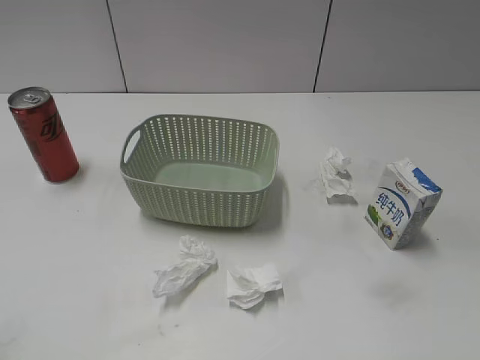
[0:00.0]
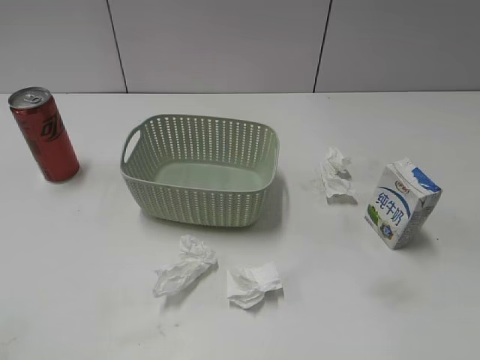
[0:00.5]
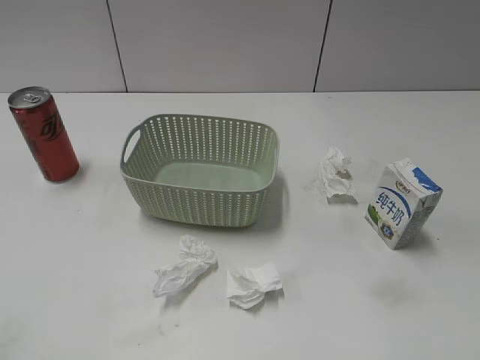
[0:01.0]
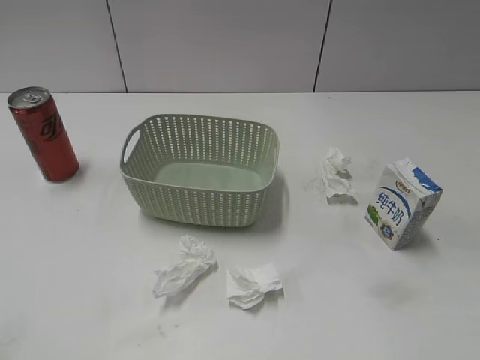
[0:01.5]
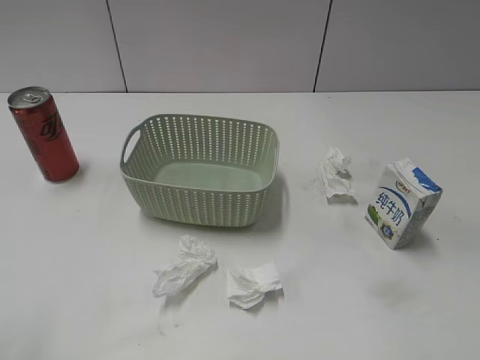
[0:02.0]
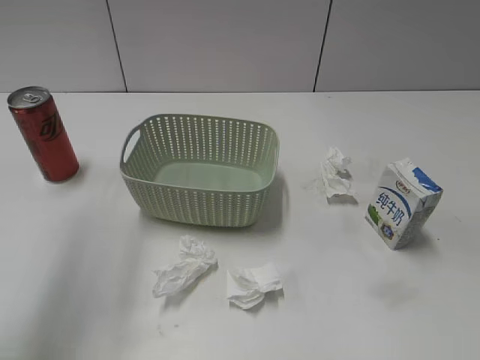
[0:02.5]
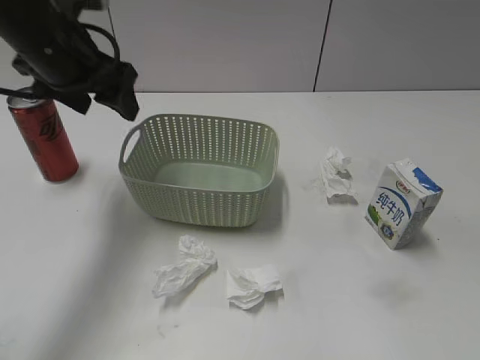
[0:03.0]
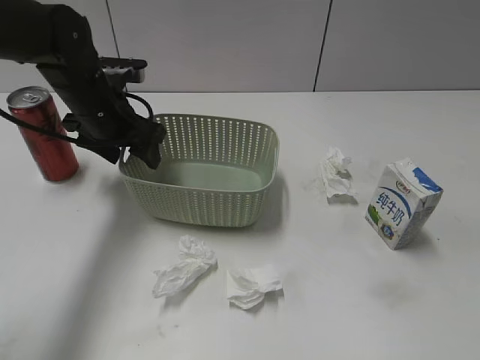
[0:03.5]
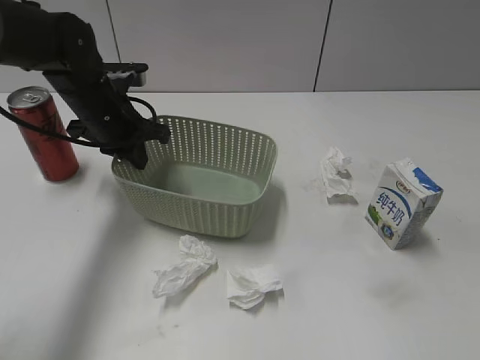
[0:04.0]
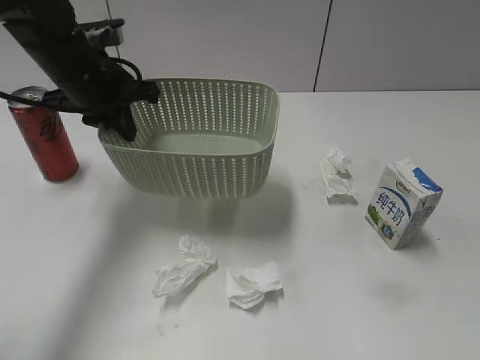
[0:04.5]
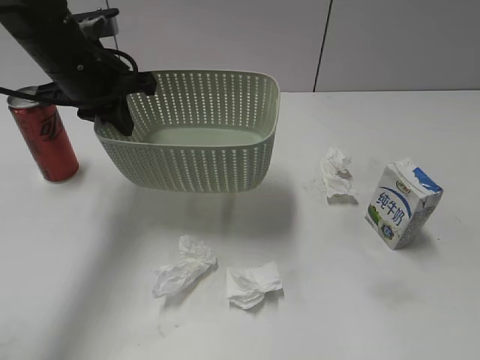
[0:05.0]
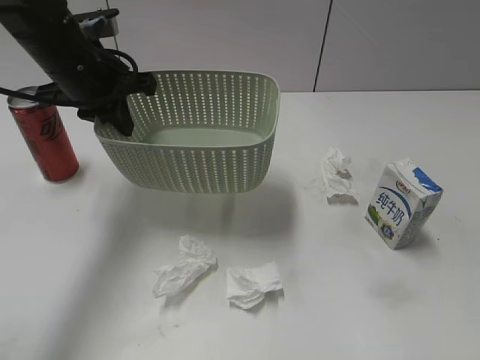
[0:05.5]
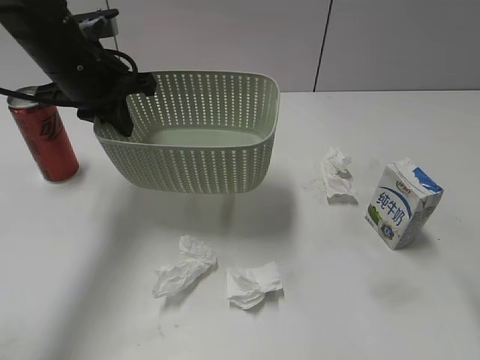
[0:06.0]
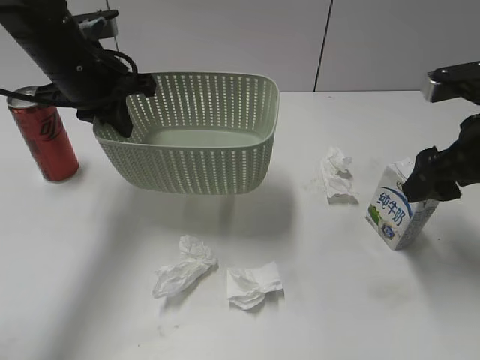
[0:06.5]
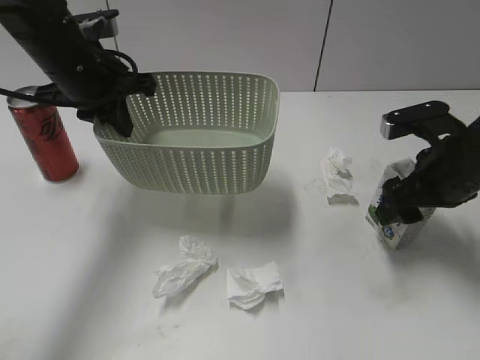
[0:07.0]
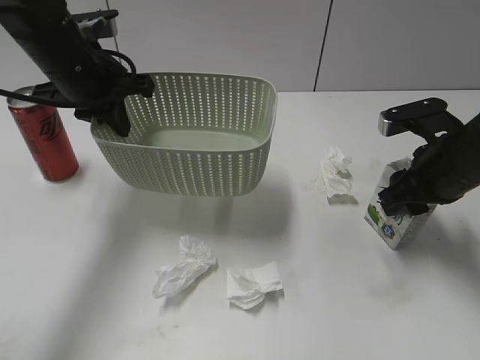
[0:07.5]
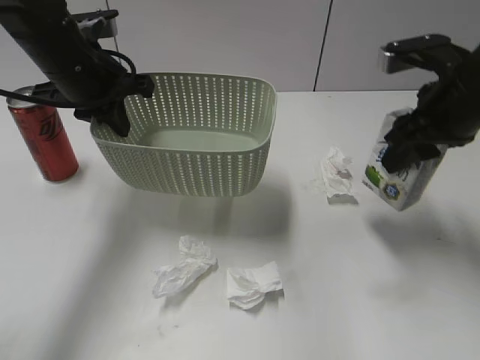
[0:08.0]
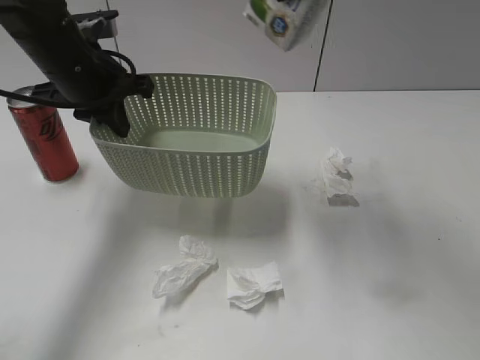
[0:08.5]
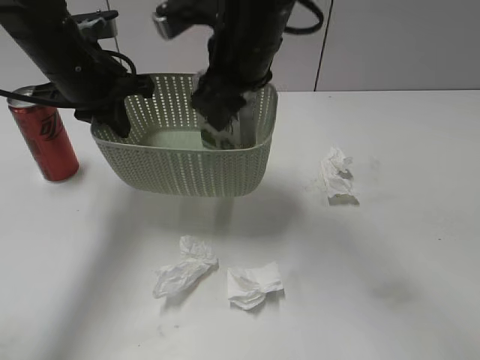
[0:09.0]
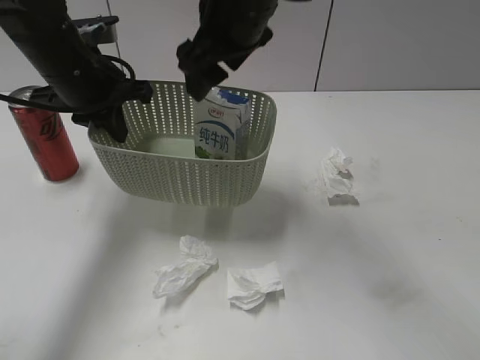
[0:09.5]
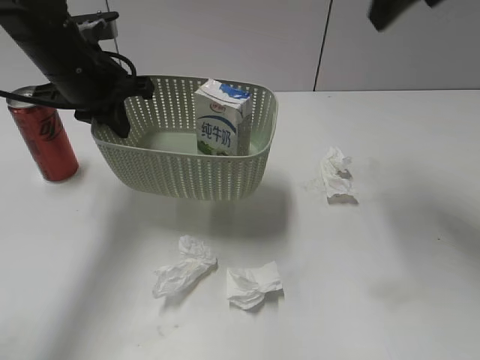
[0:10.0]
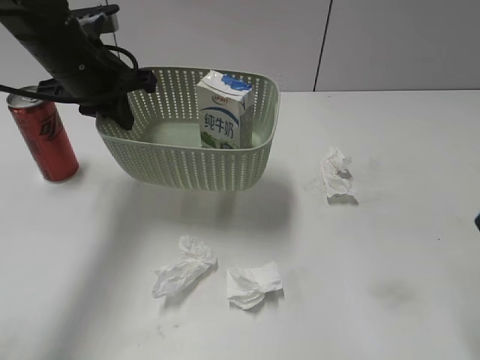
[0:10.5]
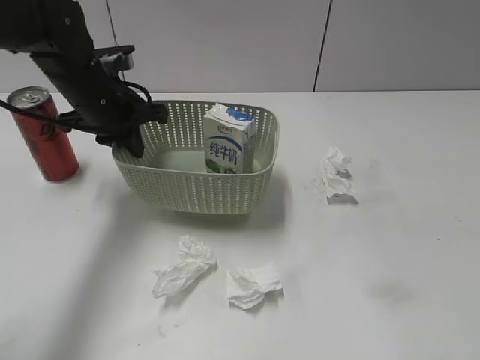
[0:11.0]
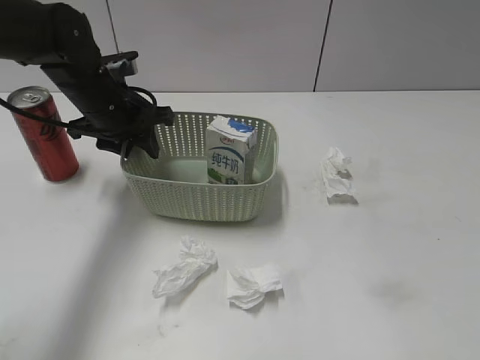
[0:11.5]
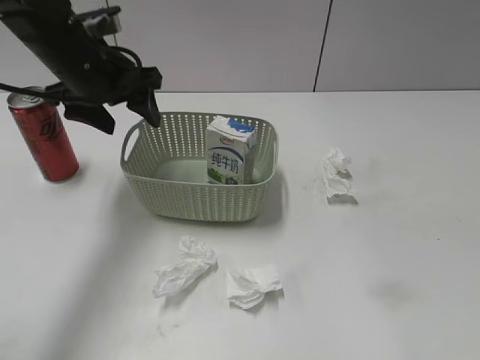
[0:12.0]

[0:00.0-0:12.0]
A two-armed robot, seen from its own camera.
Step, 0:03.0 to 0:04.0: Grasp the basket with left gripper.
Step, 0:05.0 to 0:07.5: Grasp the milk with right gripper.
Step, 0:08.0 to 0:09.5: Place the milk in the basket with right gripper.
0:02.0 to 0:04.0: The left gripper goes approximately 40 cm forward.
0:04.0 to 0:06.0: The right gripper moves forward and upward, about 10 cm. The left gripper goes roughly 5 cm upward, and closes.
0:06.0 to 0:08.0: The right gripper travels forward and downward by approximately 30 cm, and closes up.
0:08.0 to 0:10.0: The right gripper shifts some 30 cm to the left and upward, and opens up.
0:10.0 to 0:12.0: The left gripper shifts some 5 cm downward, and opens up; the right gripper shifts about 35 cm backward and to the right.

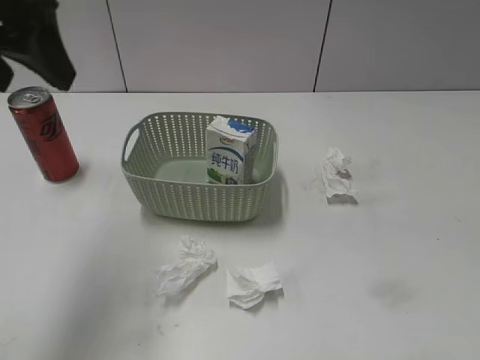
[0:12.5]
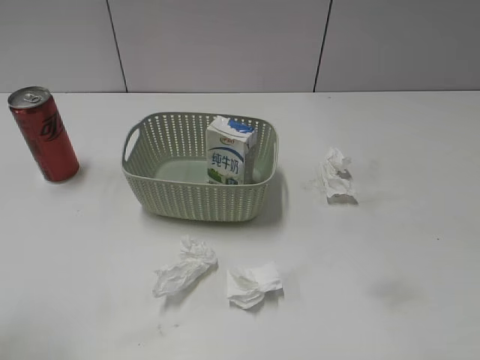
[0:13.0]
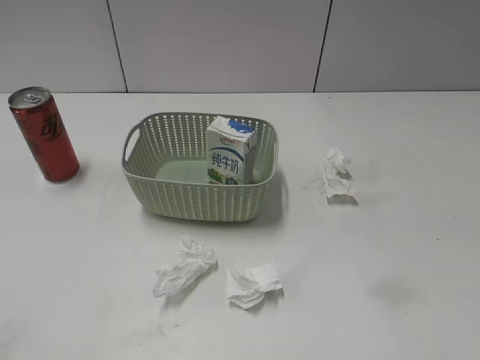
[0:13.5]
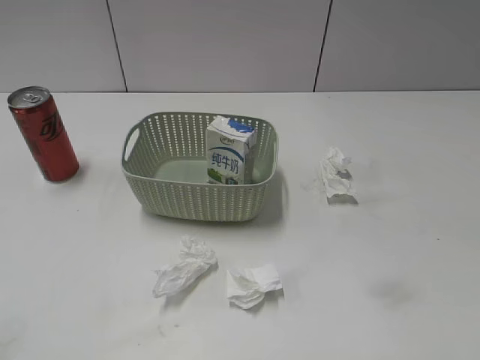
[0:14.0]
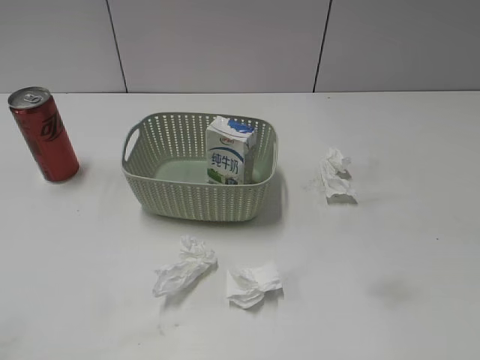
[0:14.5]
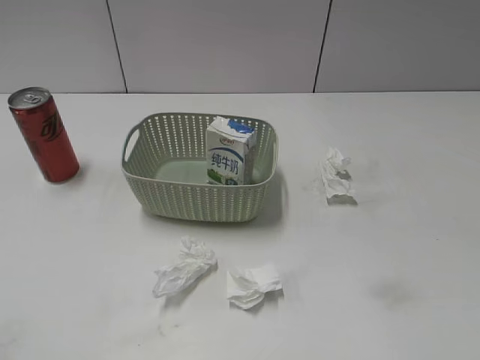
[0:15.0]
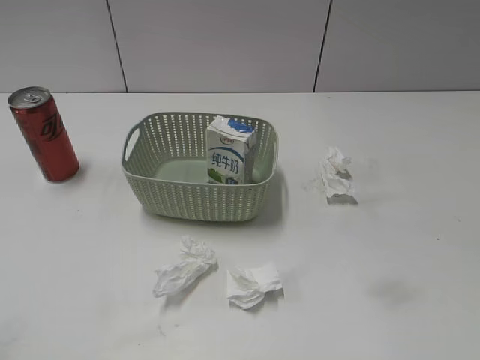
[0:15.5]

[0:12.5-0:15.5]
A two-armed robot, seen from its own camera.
0:12.5 to 0:14.0: The left gripper is displaced backward by about 30 cm.

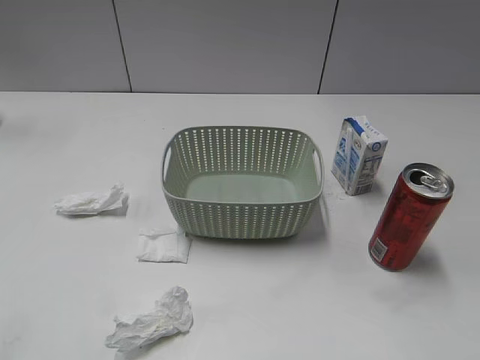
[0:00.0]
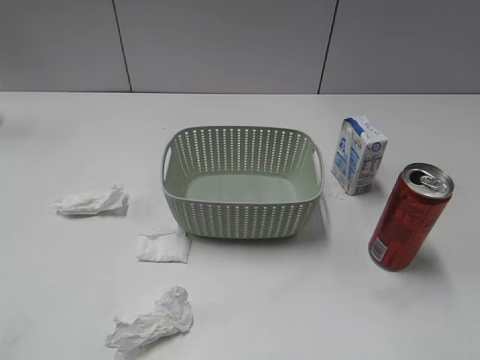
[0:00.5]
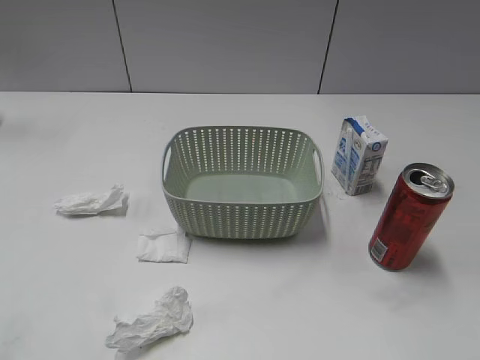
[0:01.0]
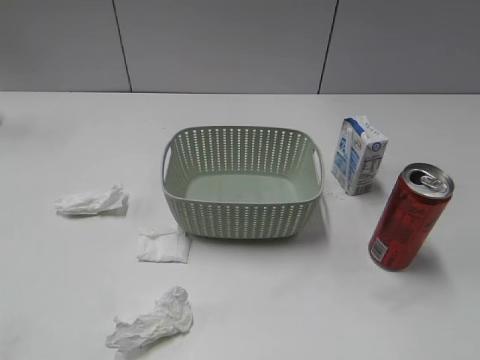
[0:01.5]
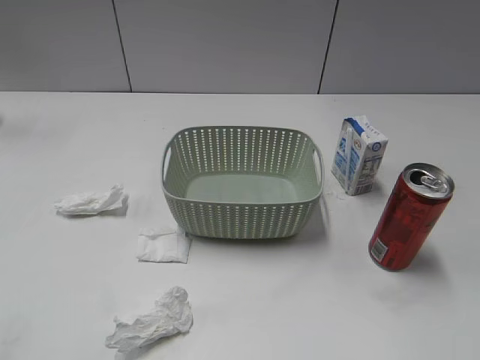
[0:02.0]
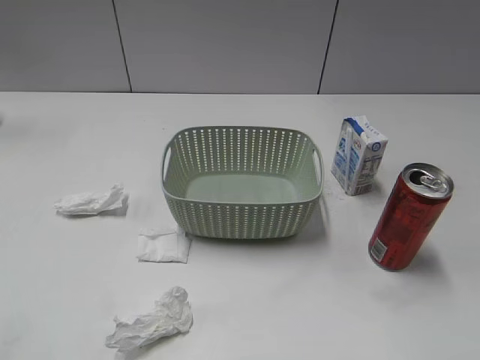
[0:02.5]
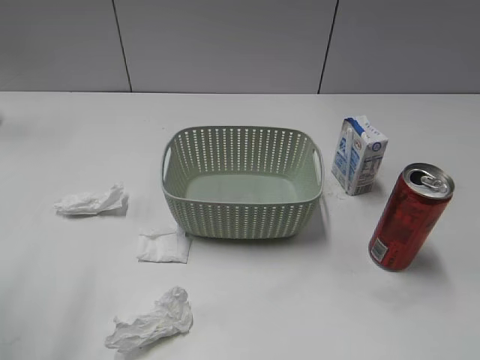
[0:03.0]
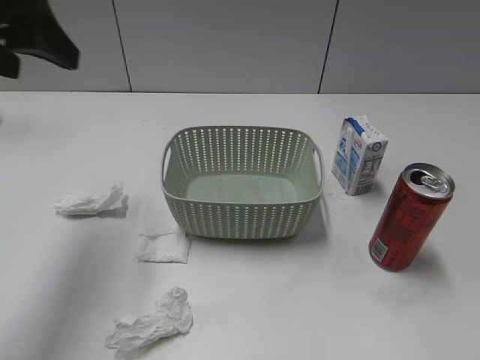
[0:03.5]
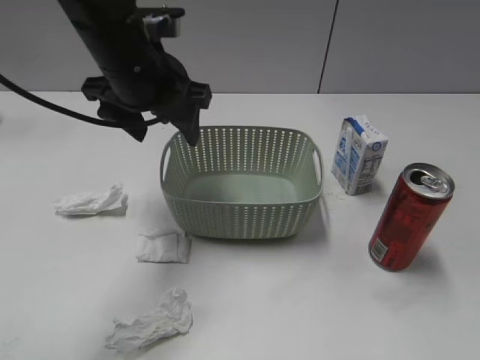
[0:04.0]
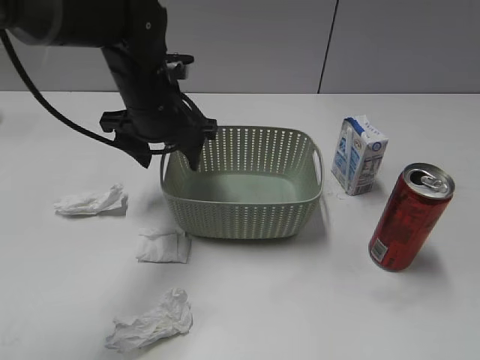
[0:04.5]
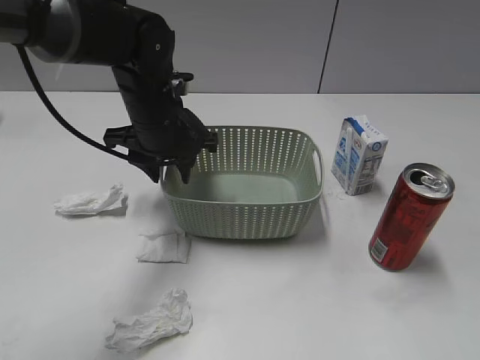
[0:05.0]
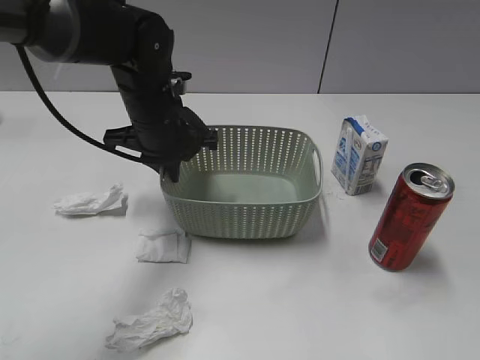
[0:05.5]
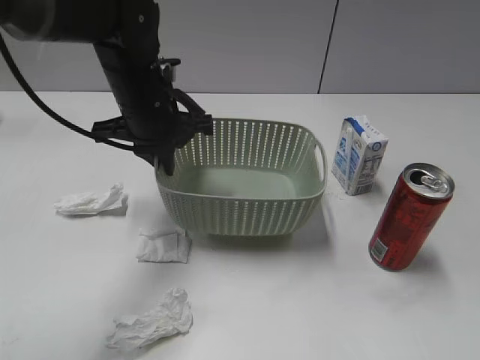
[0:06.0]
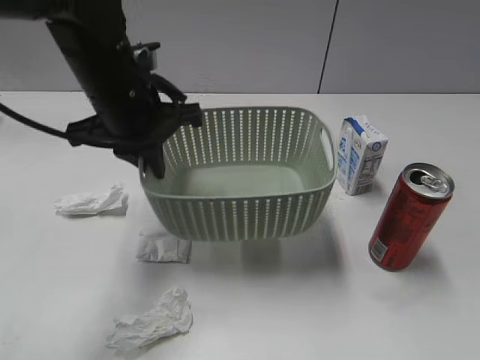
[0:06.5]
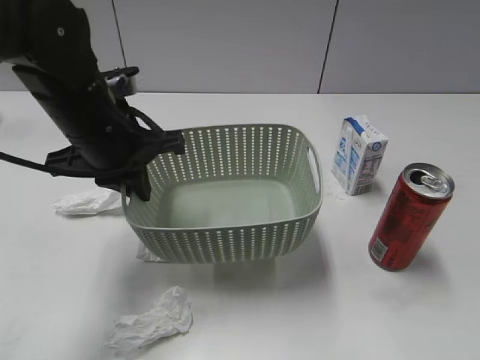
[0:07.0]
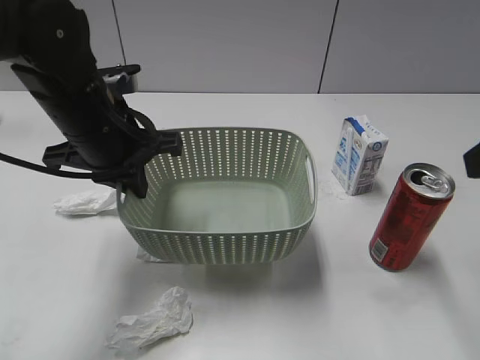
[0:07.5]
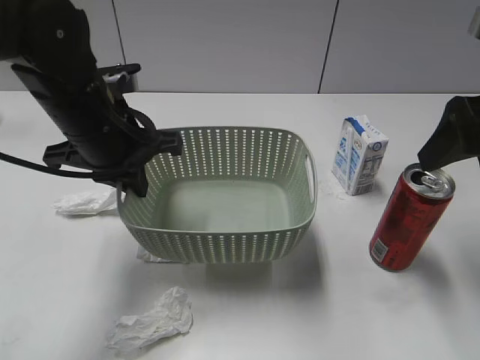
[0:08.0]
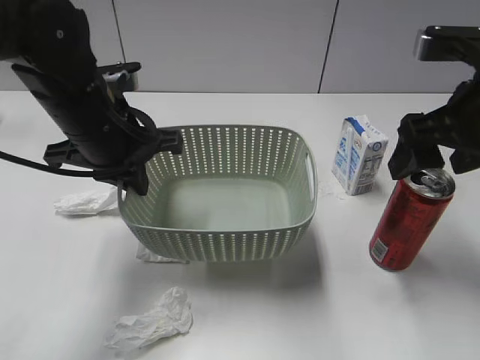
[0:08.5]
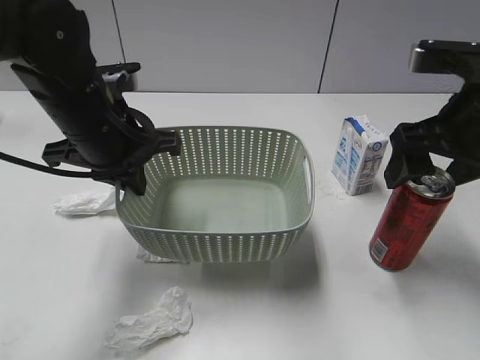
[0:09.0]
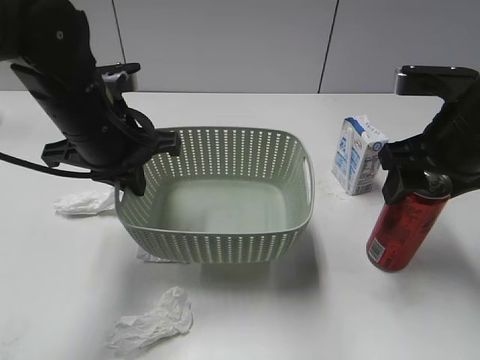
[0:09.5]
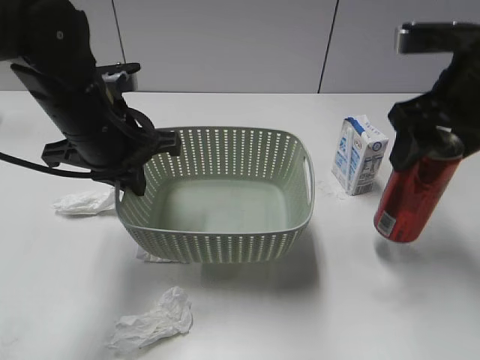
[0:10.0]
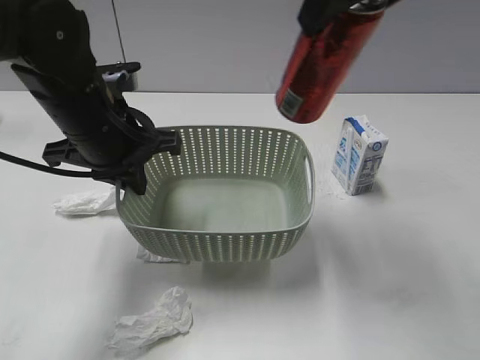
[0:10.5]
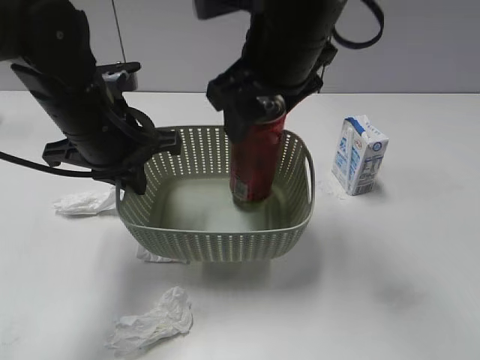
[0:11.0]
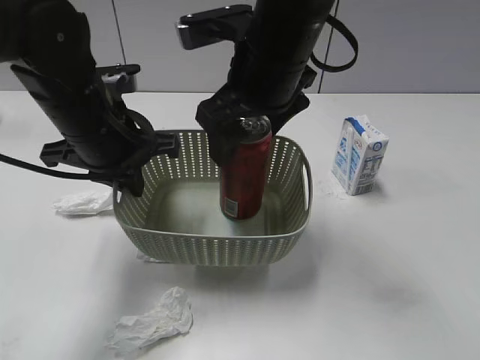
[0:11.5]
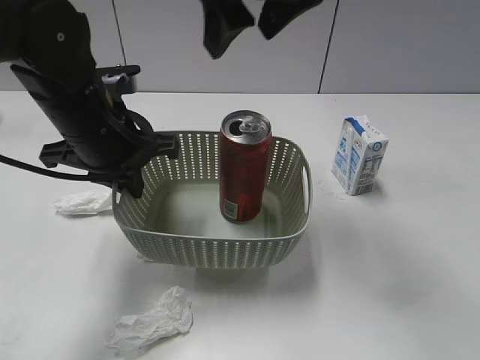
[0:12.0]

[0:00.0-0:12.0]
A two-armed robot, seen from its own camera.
Step, 0:03.5 to 0:05.5: Grasp the basket with left gripper.
Step, 0:06.0 to 0:07.0: Lift the basket with left gripper.
Step, 0:07.5 to 0:09.5: Grasp the cola can with right gripper.
Step, 0:10.0 to 0:11.5: Place the cola can in the basket with right gripper.
0:02.0 to 0:04.0: The left gripper moves forward and to the right, about 40 cm, and opens up.
0:04.0 to 0:06.0: The left gripper heads downward, covering approximately 5 cm, and closes its fingers.
0:06.0 to 0:08.0: The right gripper shifts some 25 cm forward, and opens its fingers. Meanwhile the left gripper heads backward, covering roughly 5 cm.
0:08.0 to 0:10.0: The right gripper changes place by approximately 5 cm, and closes.
0:10.0 to 0:12.0: The right gripper goes some 20 cm to the left and upward, and opens its fingers.
